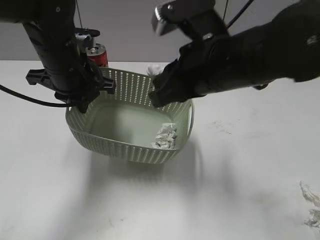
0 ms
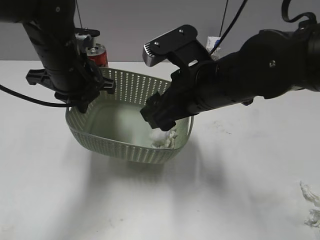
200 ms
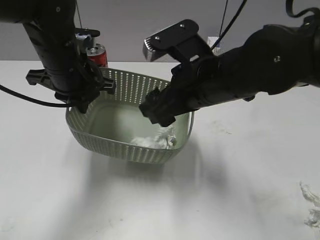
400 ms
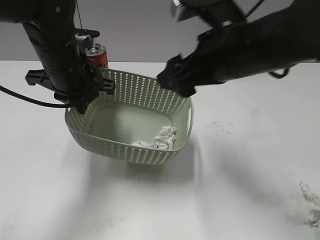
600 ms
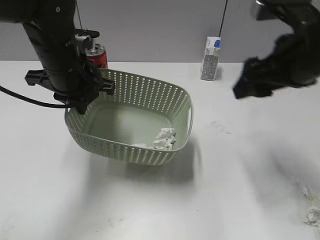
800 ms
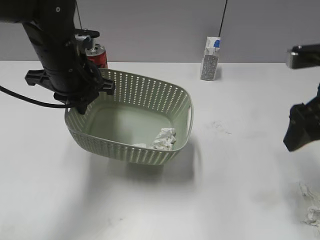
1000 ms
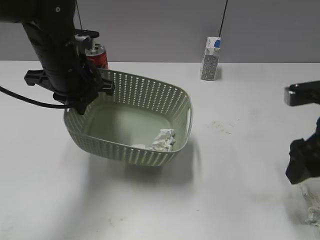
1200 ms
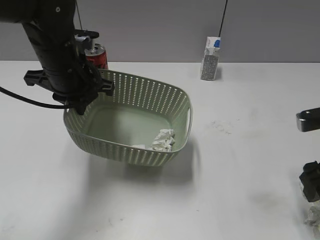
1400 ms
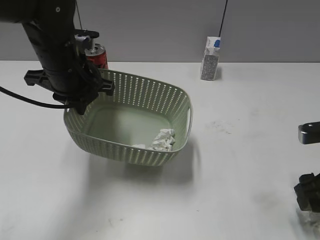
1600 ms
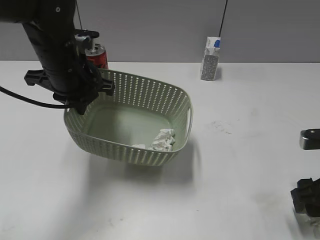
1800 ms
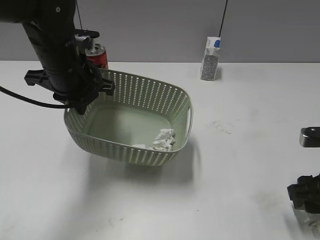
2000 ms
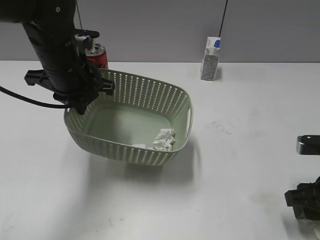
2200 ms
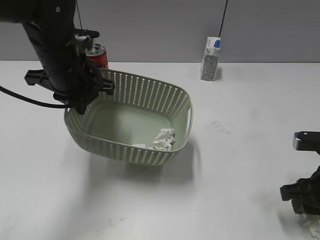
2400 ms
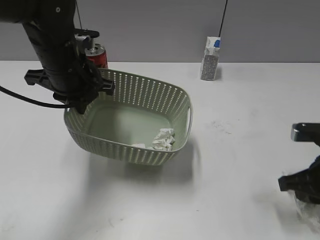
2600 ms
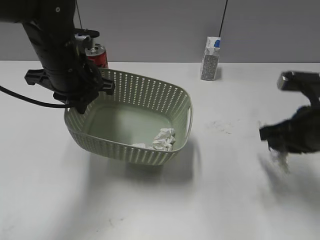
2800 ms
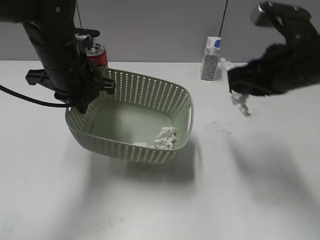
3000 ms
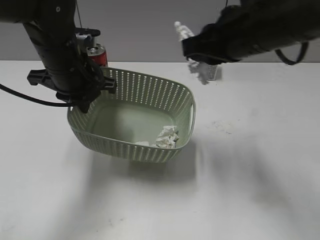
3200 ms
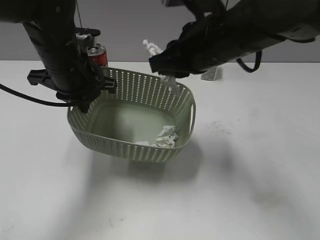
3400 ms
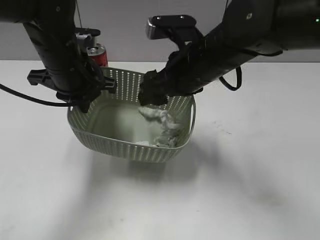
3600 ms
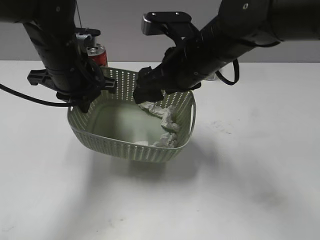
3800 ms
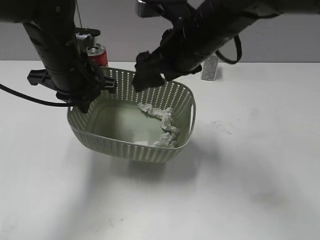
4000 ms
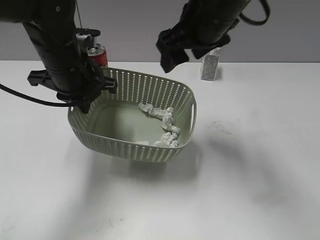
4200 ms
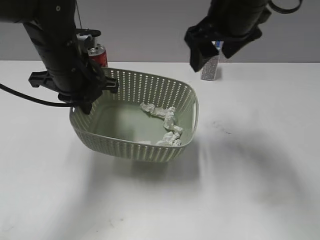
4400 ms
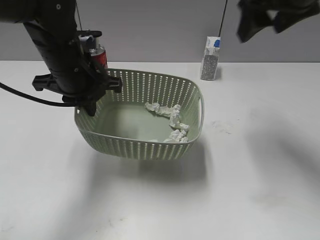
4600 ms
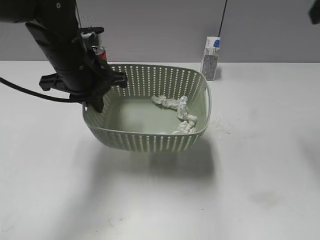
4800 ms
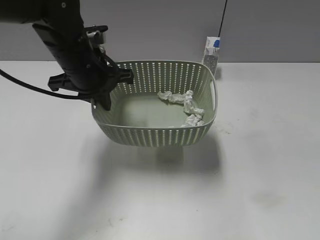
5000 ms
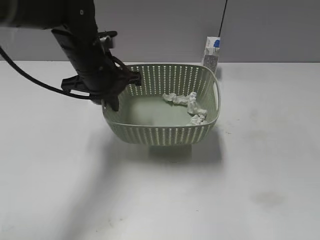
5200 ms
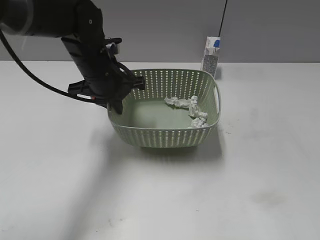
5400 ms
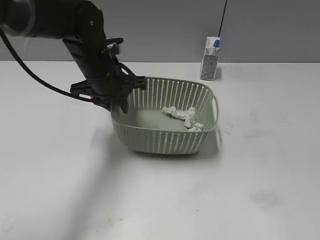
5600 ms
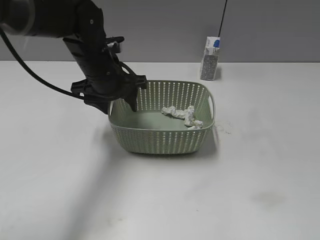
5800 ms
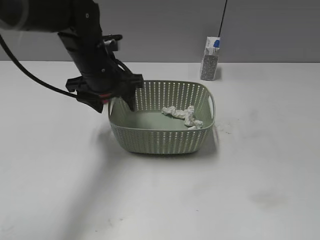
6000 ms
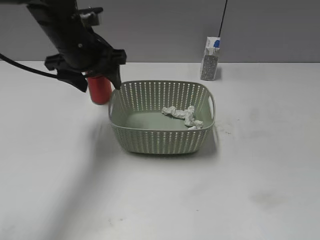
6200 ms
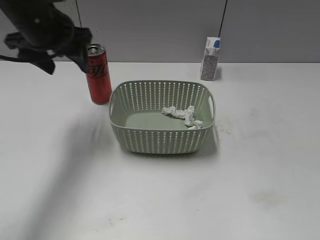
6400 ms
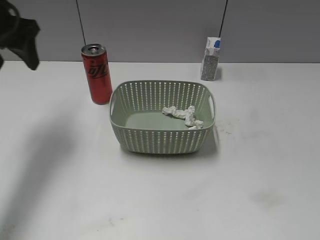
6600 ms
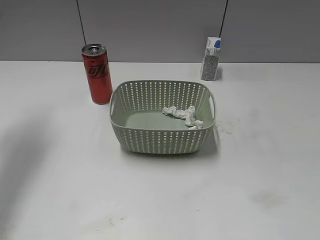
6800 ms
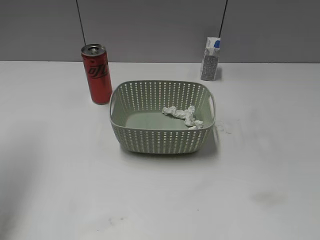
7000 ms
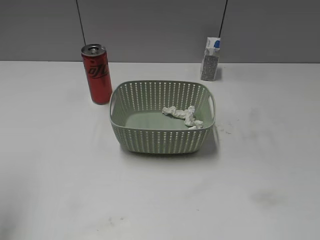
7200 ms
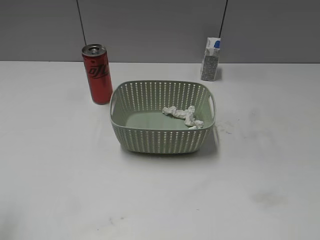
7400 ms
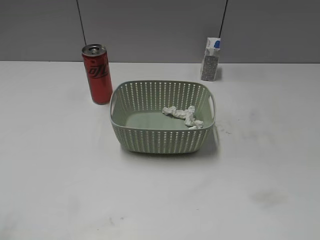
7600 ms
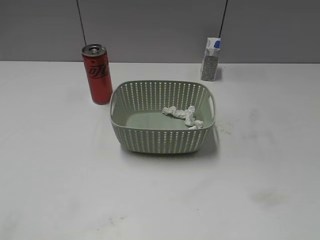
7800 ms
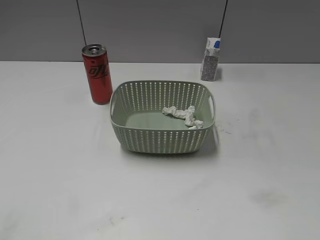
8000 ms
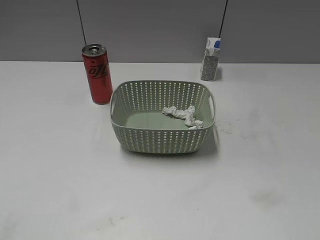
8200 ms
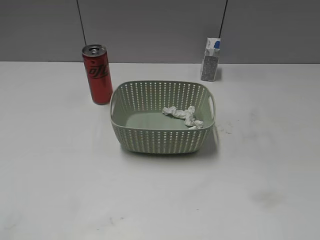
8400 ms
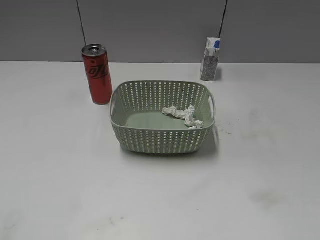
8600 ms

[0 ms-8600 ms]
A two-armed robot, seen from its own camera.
Step, 800 ms to 2600 ms: Grasp the waste paper with right gripper.
Step, 2800 ms to 4000 ms: Place the waste paper in the basket with right gripper.
Step, 4200 ms to 6200 ms: Place the basket on the table with left gripper.
0 ms to 1400 ms: The right gripper moves to the right and downward, about 20 cm, and opens its fingers.
1400 ms to 2800 ms: The right gripper shifts by some 5 cm, and closes up.
2800 ms to 4400 ms: The right gripper heads to the left, upward and forward, covering roughly 20 cm, and opens up.
4400 ms to 5800 ms: The right gripper travels backward and to the right by approximately 35 cm; the left gripper changes place by some 5 cm, and opens up.
5800 ms to 7200 ms: The left gripper shifts some 35 cm to the left, upward and backward.
7200 ms to 8600 ms: The left gripper is displaced backward and downward by about 20 cm.
